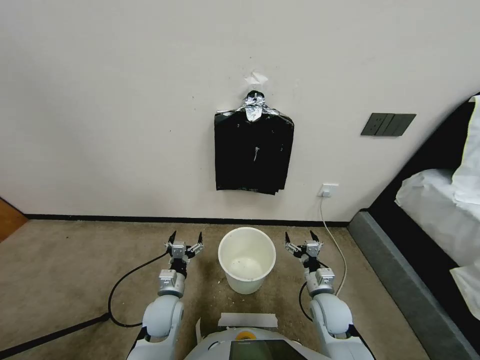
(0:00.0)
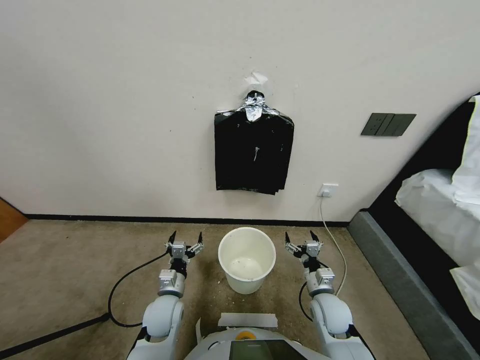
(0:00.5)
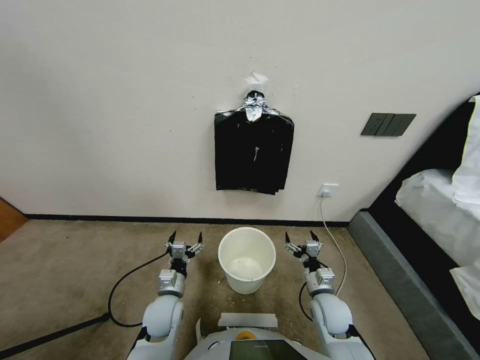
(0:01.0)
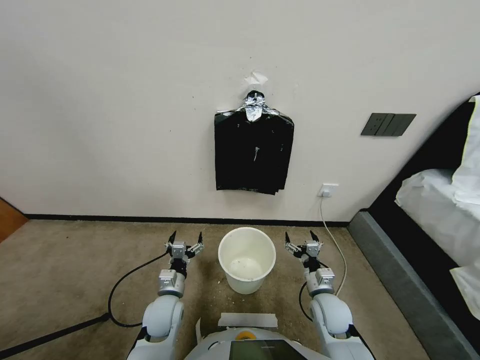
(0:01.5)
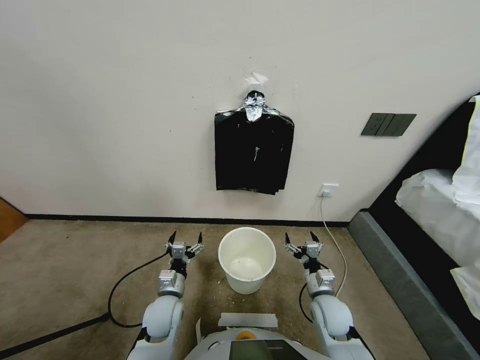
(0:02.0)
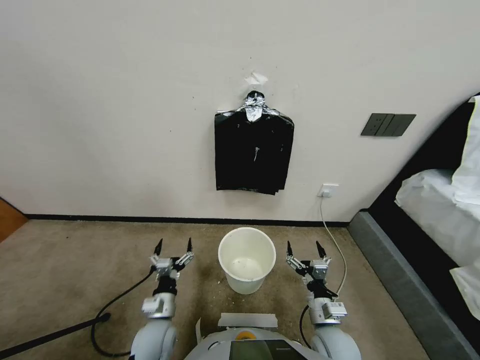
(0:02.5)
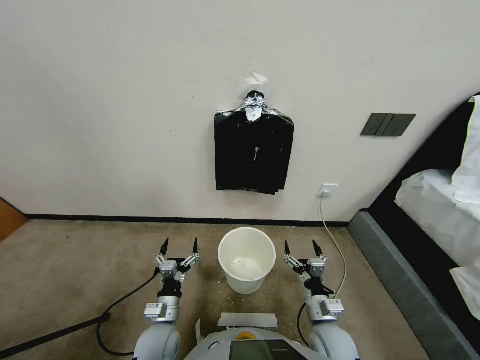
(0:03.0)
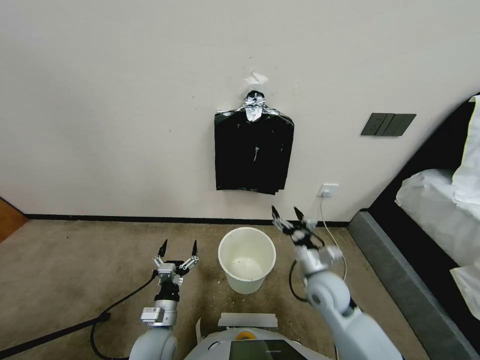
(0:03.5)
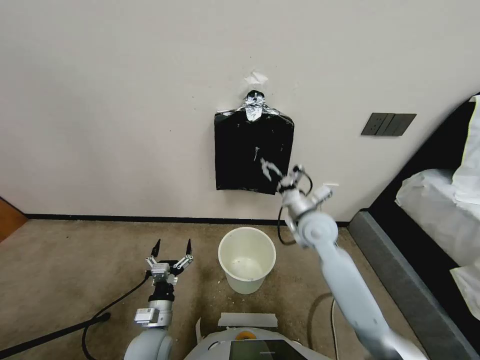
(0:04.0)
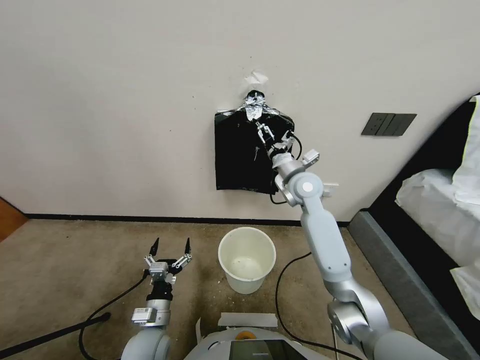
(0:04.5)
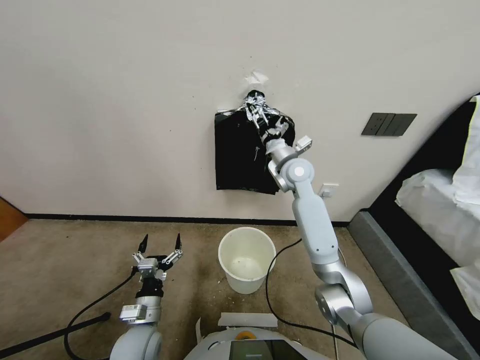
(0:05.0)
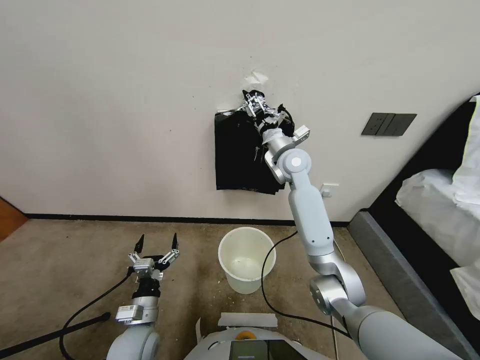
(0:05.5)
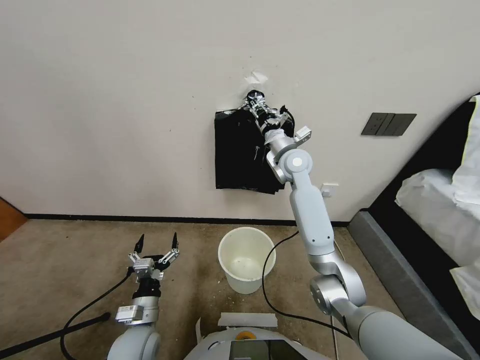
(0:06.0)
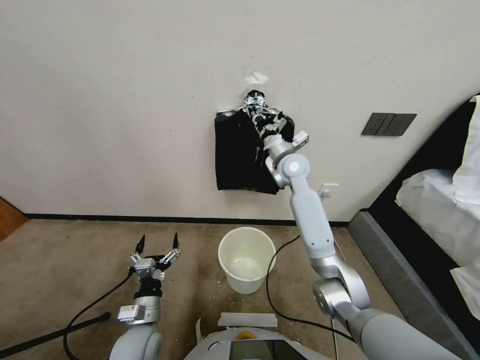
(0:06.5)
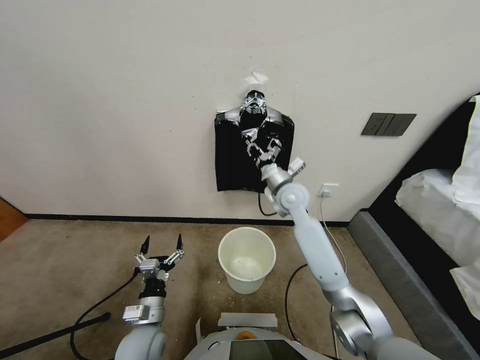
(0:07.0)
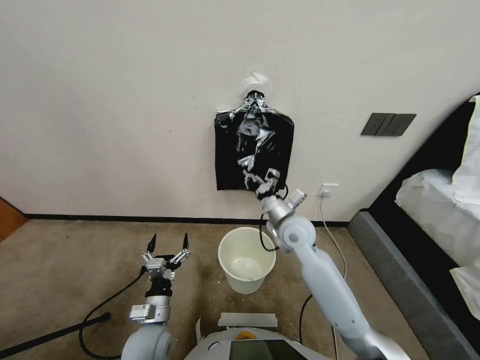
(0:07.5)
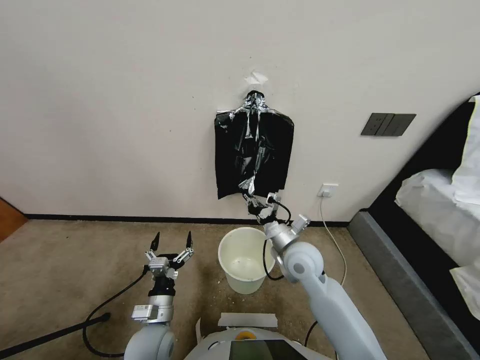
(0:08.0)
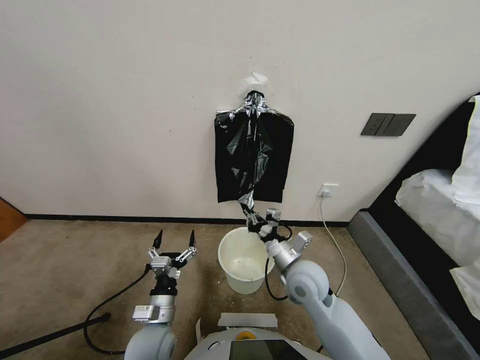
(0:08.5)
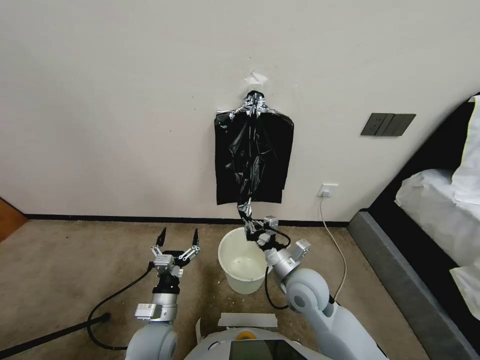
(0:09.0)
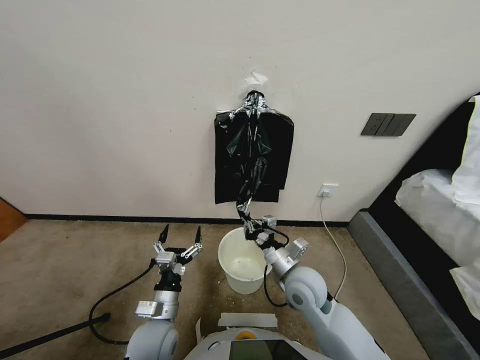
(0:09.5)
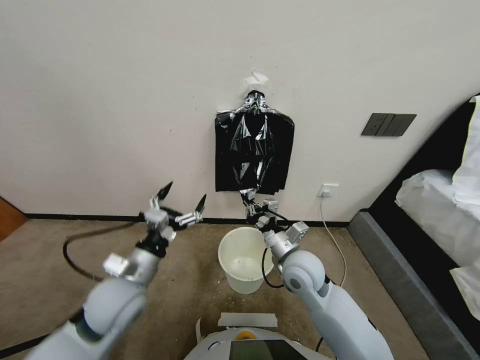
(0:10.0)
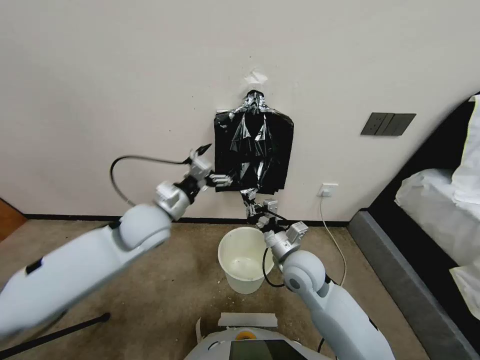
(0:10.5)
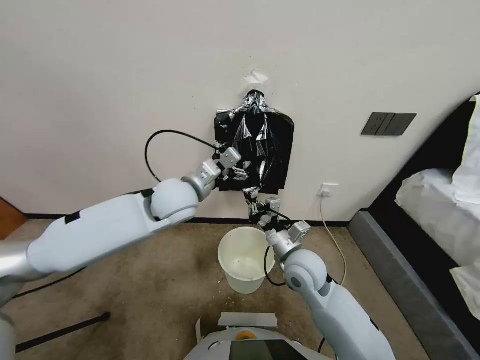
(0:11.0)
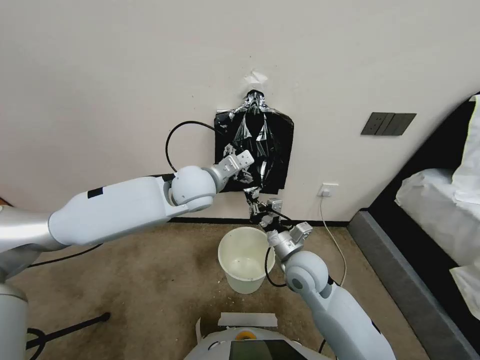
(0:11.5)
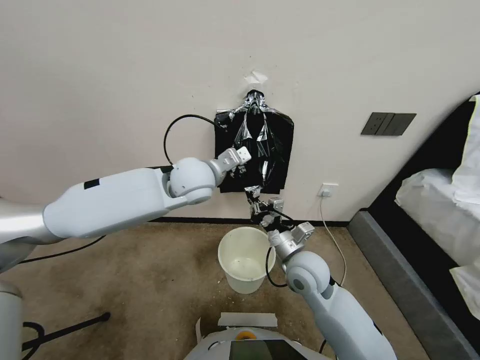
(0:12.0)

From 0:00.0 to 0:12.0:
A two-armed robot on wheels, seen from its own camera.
Task of the whole recording: Place a trash bag onto the trash bin.
From 0:02.0 to 0:04.0: The left gripper is displaced backward by some 5 cm. Meanwhile the right gripper travels upward and forward by roughly 30 cm.
From 0:04.0 to 0:06.0: The right gripper travels forward and upward by approximately 15 cm, and closes.
From 0:06.0 to 0:08.0: The right gripper travels backward and downward by some 25 cm.
From 0:08.0 to 0:10.0: The left gripper goes some 20 cm upward and forward.
From 0:10.0 to 0:12.0: The left gripper shifts roughly 25 cm forward, upward and to the right, and closes.

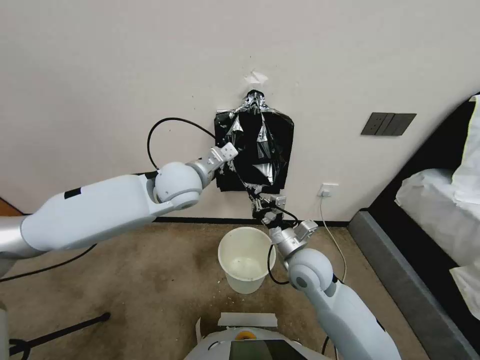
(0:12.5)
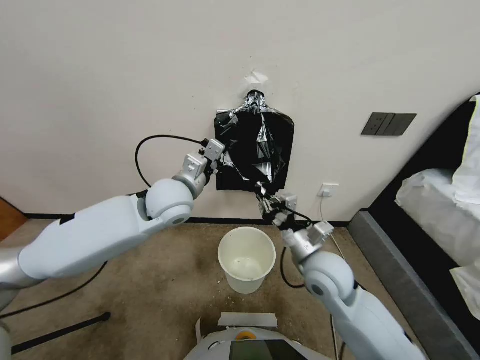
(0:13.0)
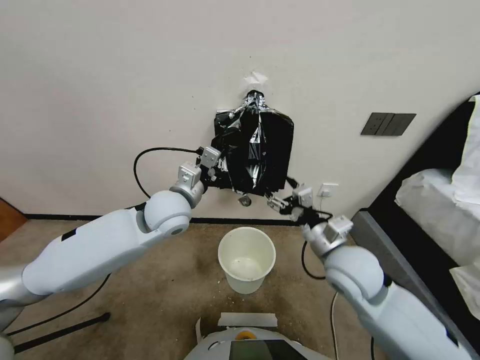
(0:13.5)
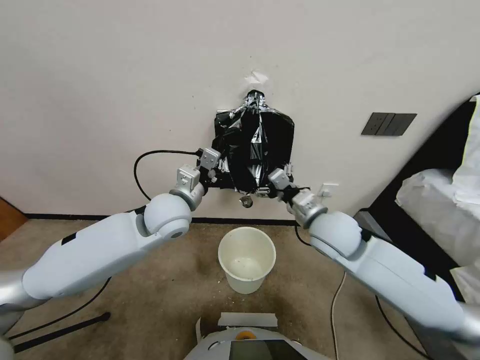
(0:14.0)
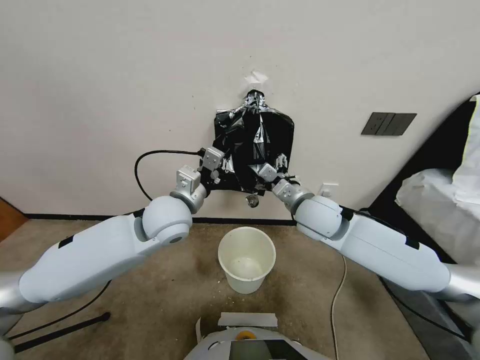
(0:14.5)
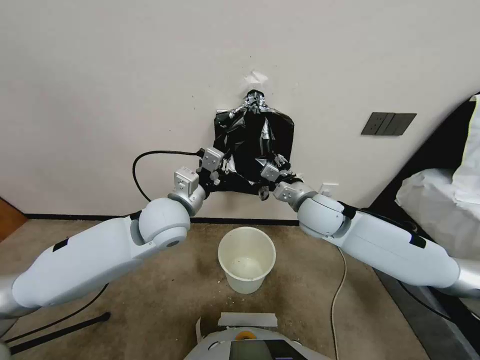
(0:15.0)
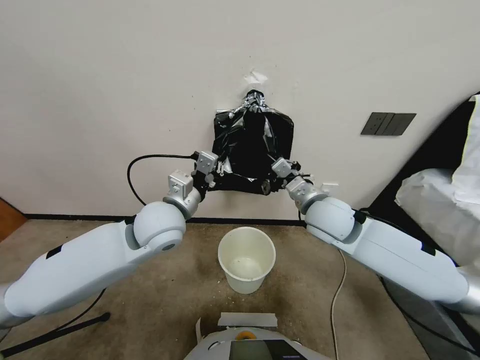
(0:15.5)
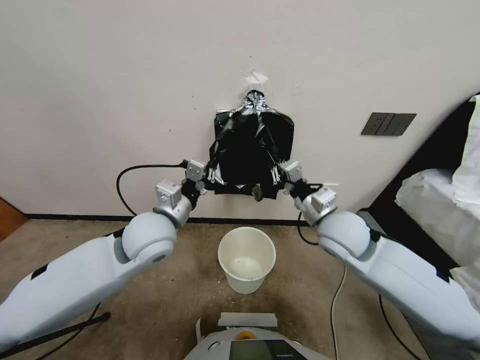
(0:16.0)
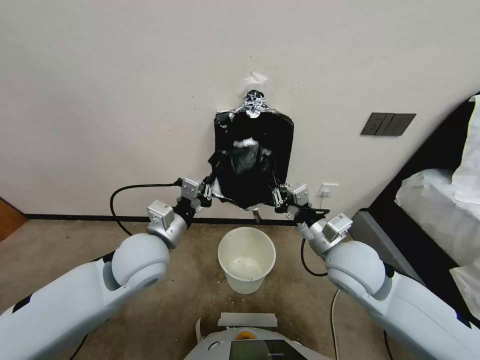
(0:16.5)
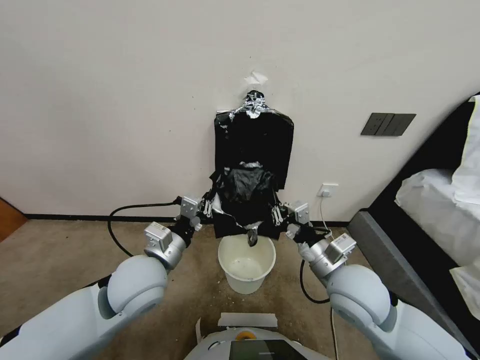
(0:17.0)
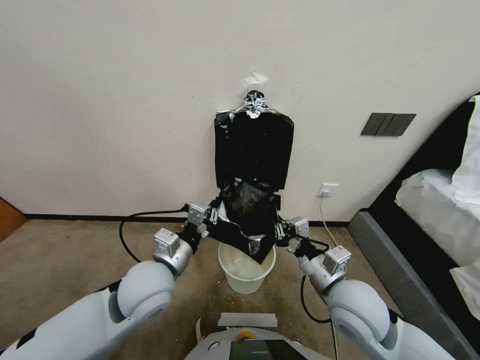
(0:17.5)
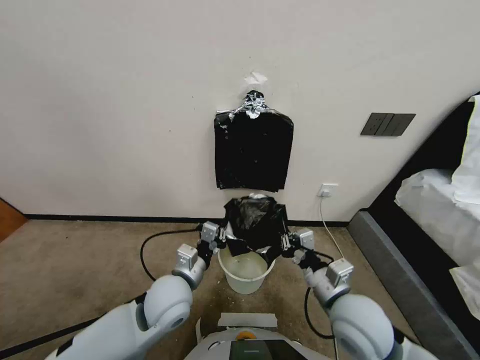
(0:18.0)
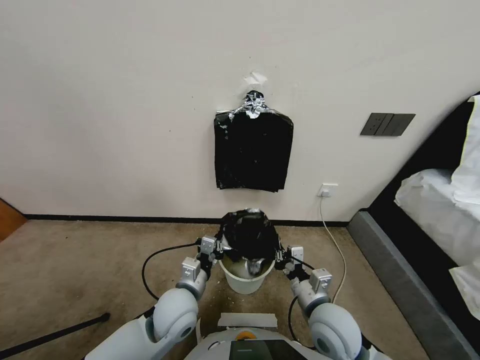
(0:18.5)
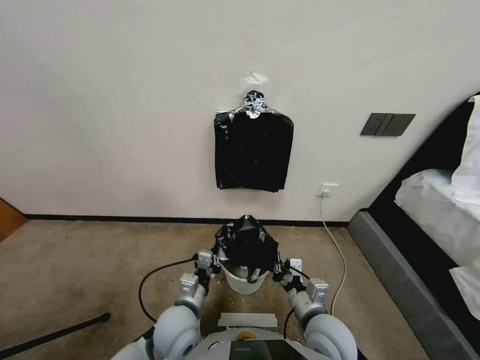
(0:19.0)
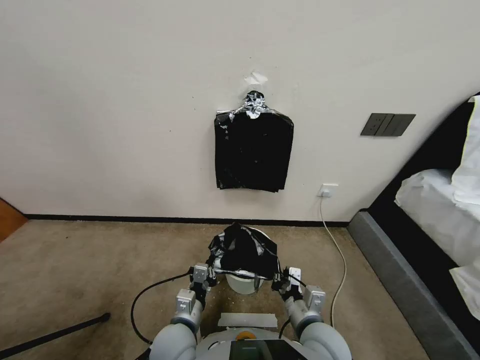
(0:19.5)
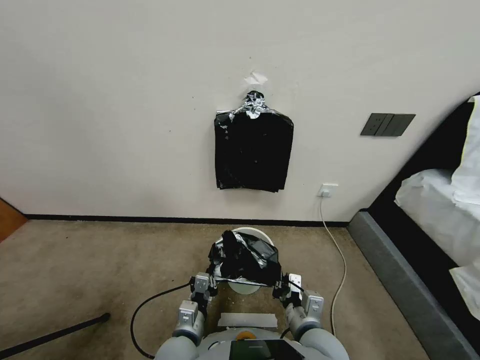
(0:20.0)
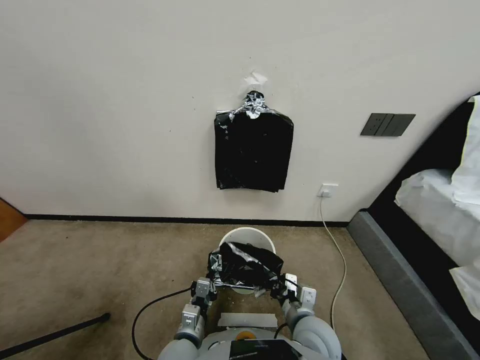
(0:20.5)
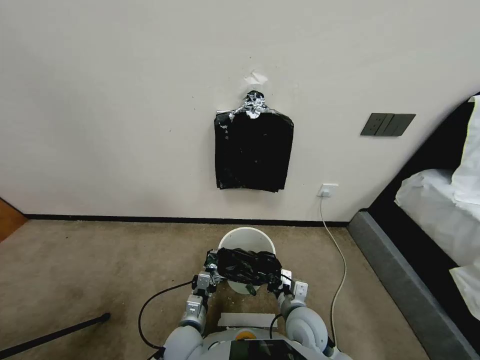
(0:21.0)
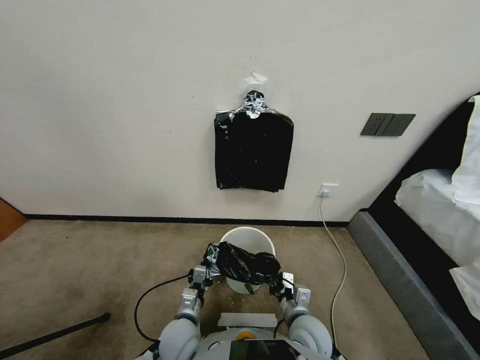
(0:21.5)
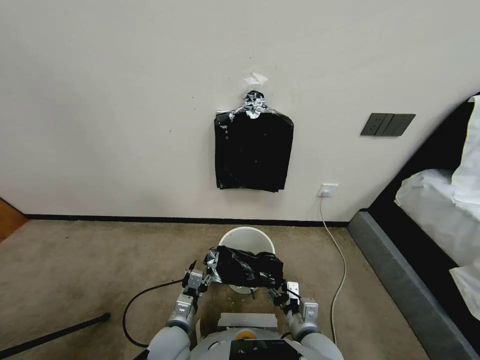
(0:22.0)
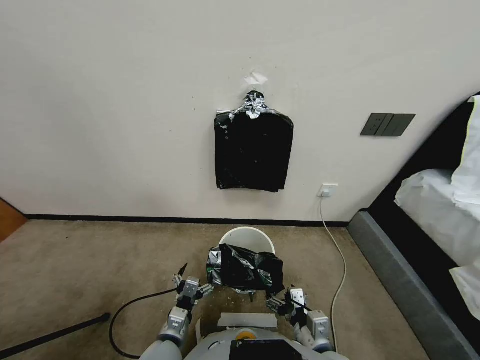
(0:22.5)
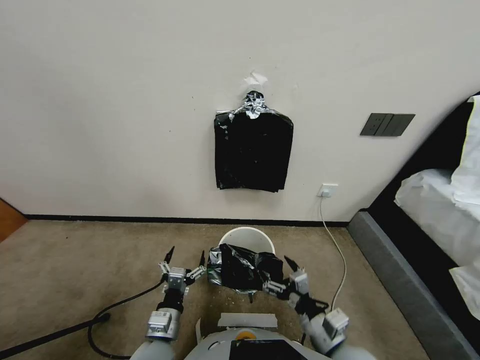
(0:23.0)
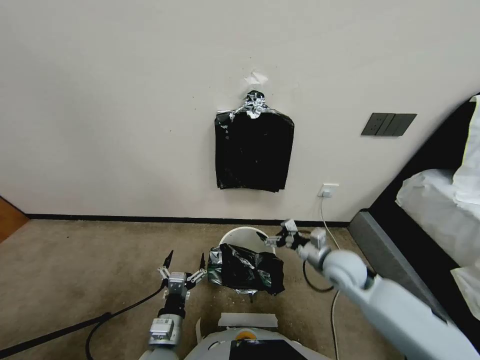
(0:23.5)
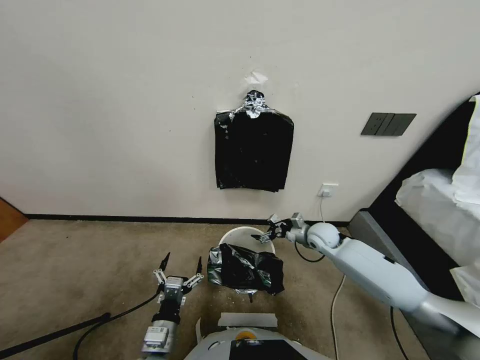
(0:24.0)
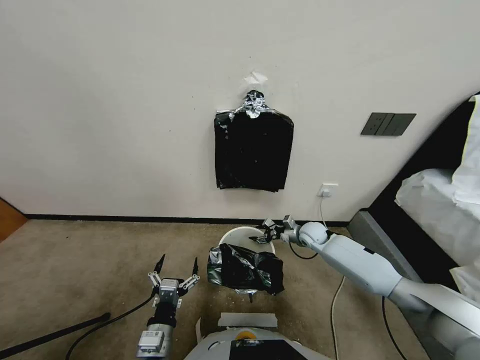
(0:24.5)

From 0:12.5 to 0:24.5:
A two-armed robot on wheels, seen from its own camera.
Task of the whole recording: Place a trash bag onto the trash bin.
From 0:12.5 to 0:14.5: The right gripper heads forward and upward, covering about 10 cm, and opens. Meanwhile the left gripper shifts some 5 cm backward.
From 0:14.5 to 0:16.5: The left gripper is displaced backward by roughly 10 cm. The right gripper travels backward by roughly 10 cm, and closes.
From 0:16.5 to 0:18.5: Both grippers travel together downward and backward, about 15 cm.
From 0:18.5 to 0:20.5: The left gripper shifts about 10 cm downward and backward; the right gripper ends up some 5 cm from where it was.
From 0:20.5 to 0:22.5: The right gripper heads backward, covering about 10 cm, and opens, while the left gripper opens.
From 0:22.5 to 0:24.5: The right gripper is displaced forward by some 35 cm, and closes.

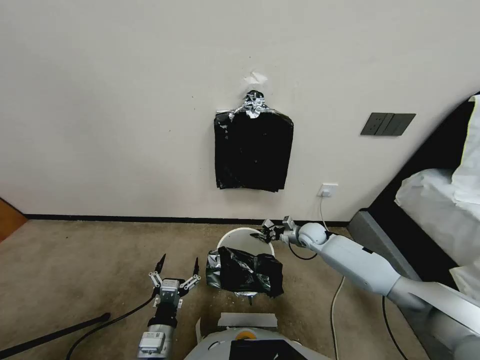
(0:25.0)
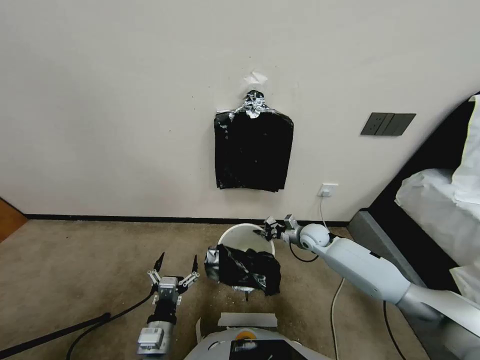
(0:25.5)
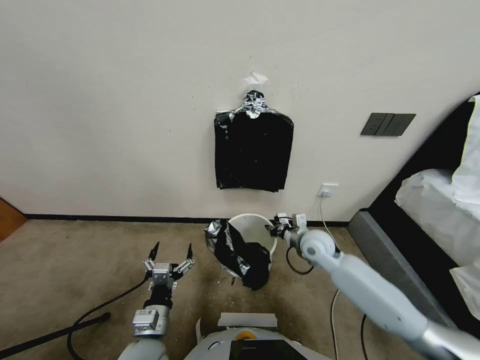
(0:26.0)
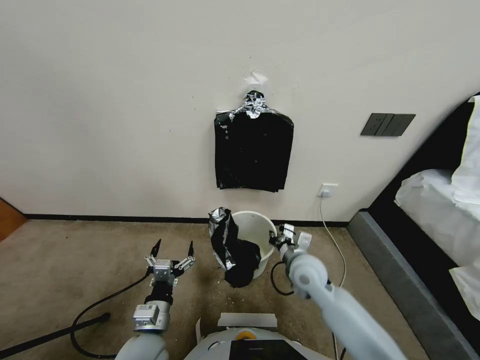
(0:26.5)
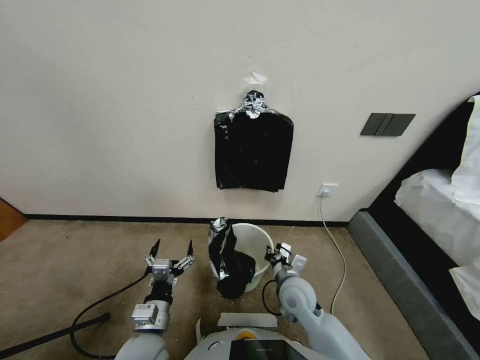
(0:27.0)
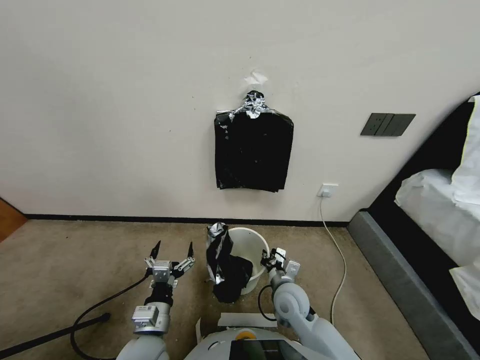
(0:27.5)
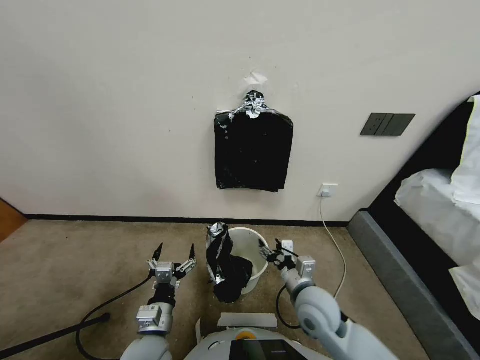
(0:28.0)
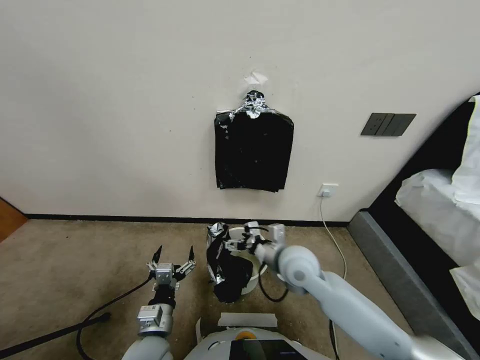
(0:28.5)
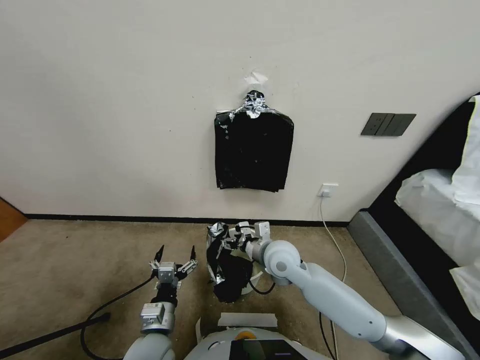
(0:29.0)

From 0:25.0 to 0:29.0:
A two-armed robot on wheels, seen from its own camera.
Task of the whole recording: Place a trash bag onto the trash bin.
From 0:25.0 to 0:27.0: The right gripper moves backward and to the left, some 25 cm; the left gripper ends up approximately 5 cm from where it was.
From 0:27.0 to 0:29.0: The right gripper is displaced upward and forward by about 10 cm, and opens its fingers.
